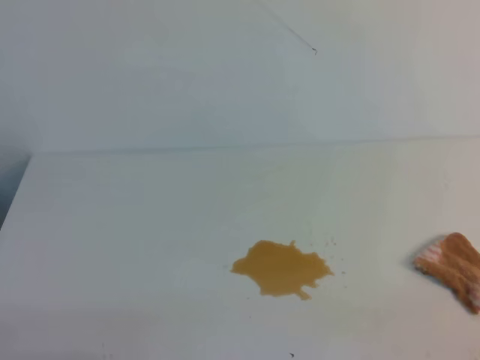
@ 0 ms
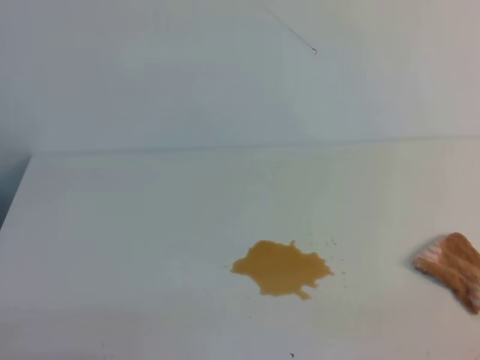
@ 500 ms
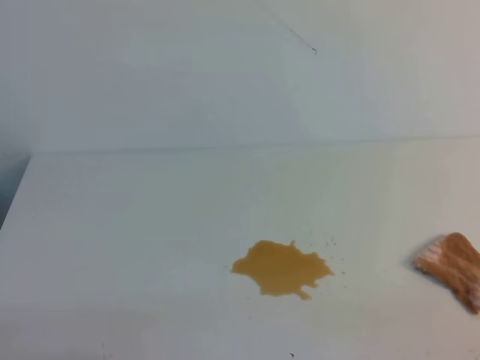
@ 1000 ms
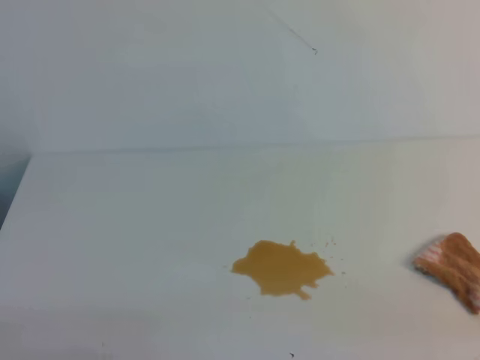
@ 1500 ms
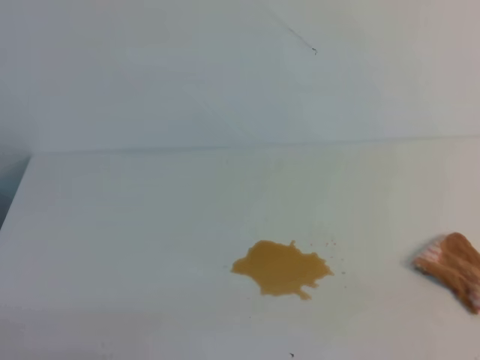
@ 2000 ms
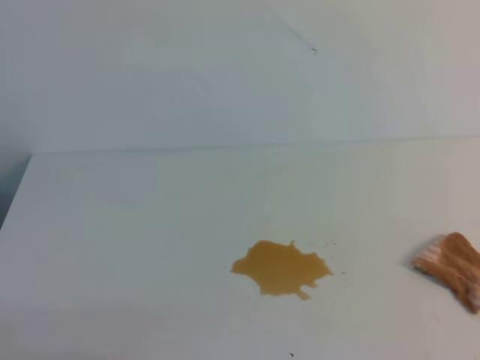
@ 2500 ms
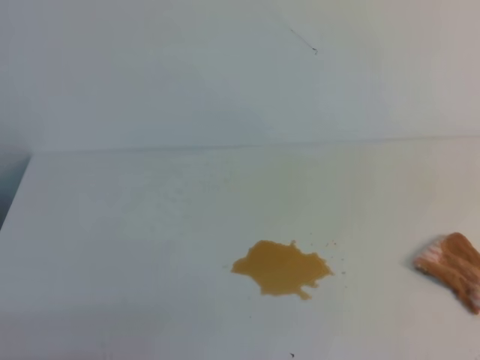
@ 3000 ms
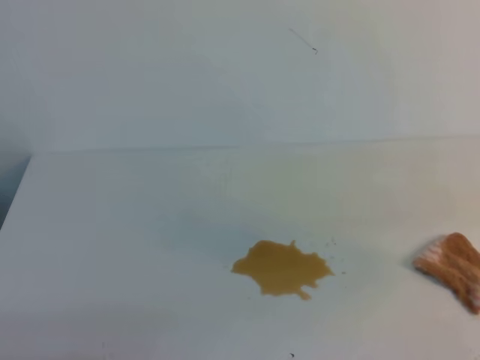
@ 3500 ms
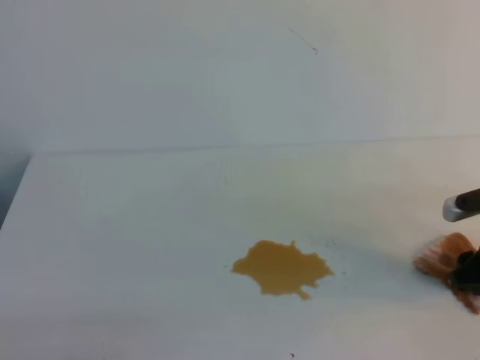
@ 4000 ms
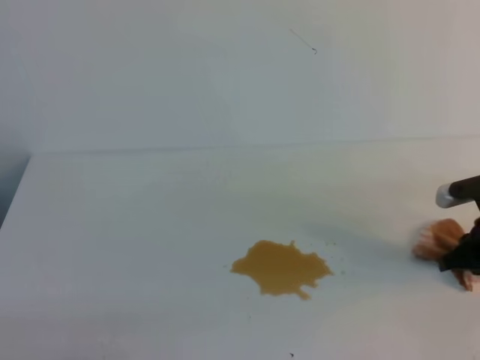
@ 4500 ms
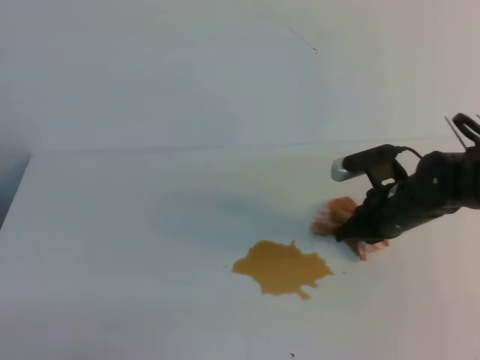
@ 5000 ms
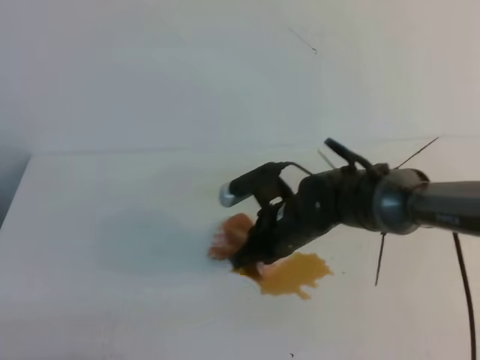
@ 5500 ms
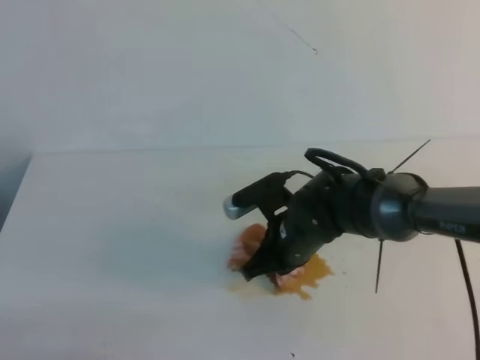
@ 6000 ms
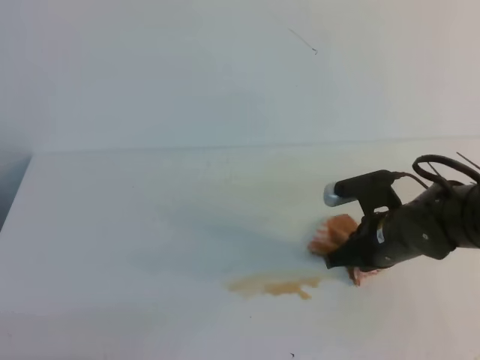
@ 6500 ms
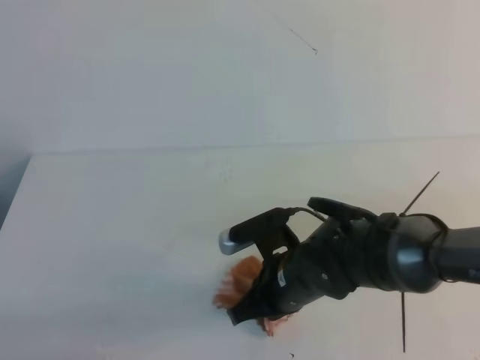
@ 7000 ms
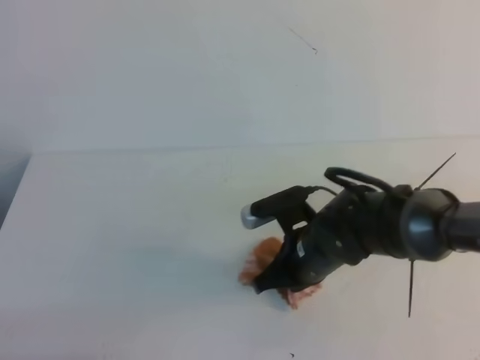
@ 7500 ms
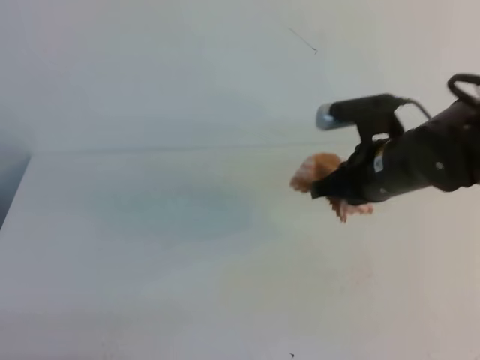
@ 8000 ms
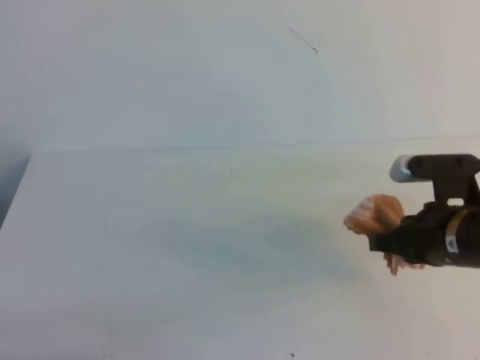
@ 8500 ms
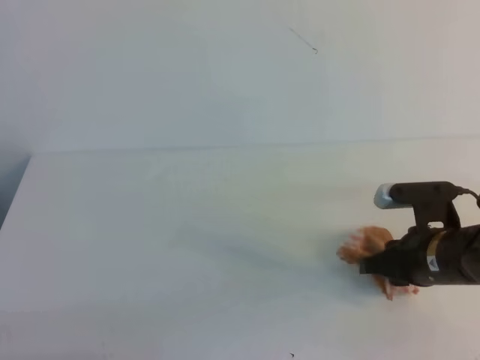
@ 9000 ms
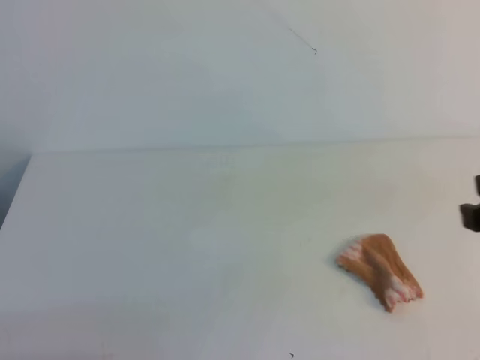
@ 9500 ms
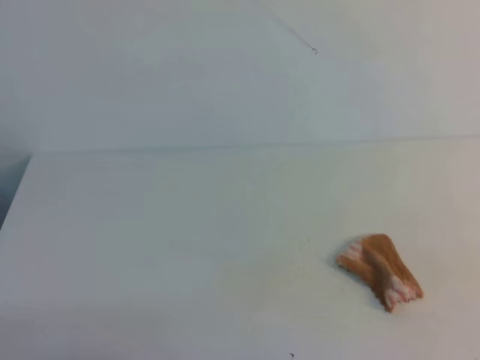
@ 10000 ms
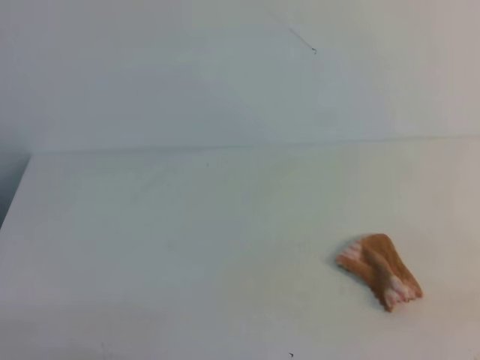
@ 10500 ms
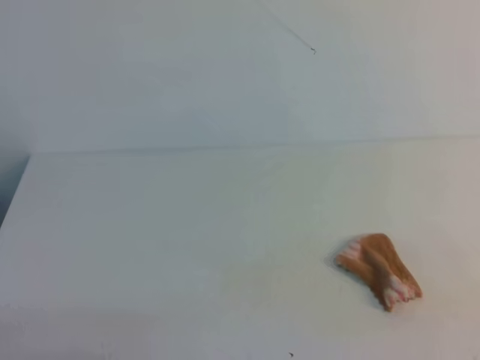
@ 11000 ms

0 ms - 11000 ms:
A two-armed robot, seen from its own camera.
3500 ms - 5500 ms: The right gripper moves to the left and downward, about 30 cm, and closes.
5500 ms - 7500 ms: The right gripper heads backward, covering some 5 cm, and moves approximately 10 cm to the right and comes back.
7500 ms - 9000 ms: The right gripper moves to the right, about 15 cm, and opens its fingers.
9000 ms - 11000 ms: The right gripper moves backward, to the right and upward, approximately 30 cm, and closes.

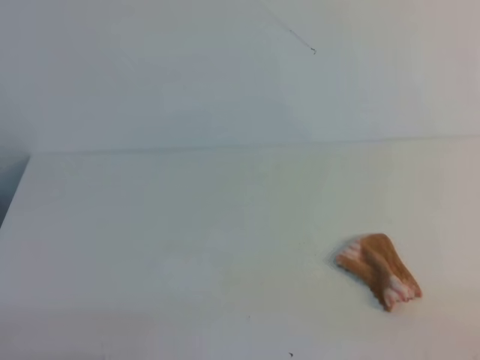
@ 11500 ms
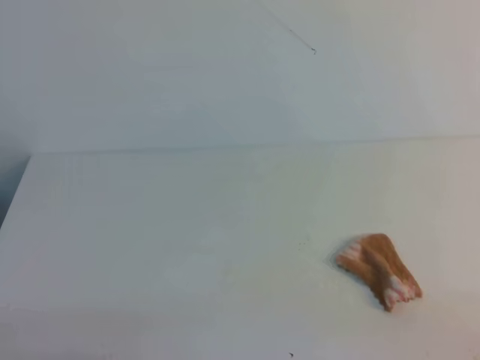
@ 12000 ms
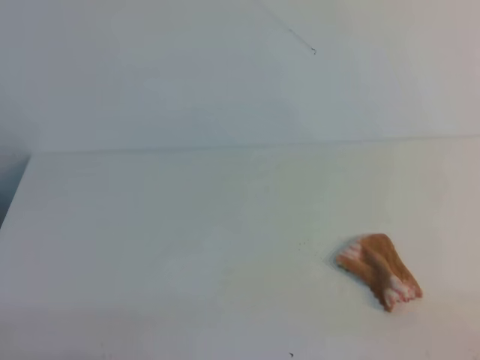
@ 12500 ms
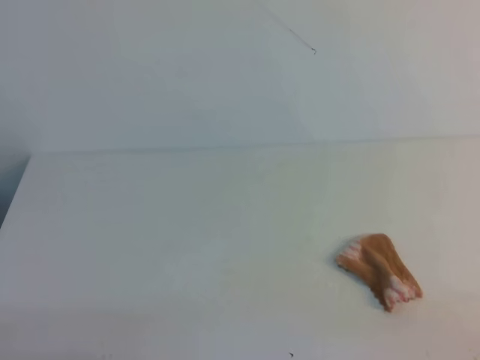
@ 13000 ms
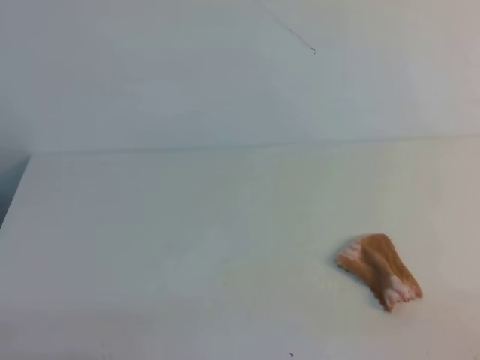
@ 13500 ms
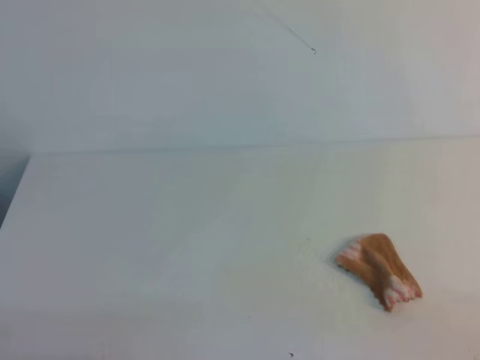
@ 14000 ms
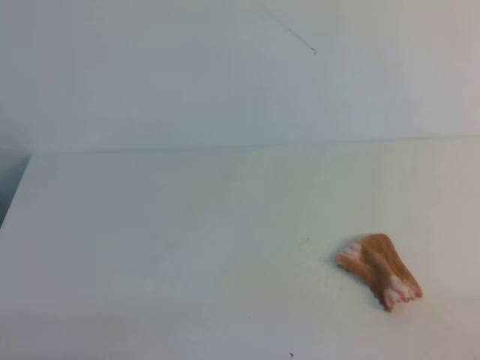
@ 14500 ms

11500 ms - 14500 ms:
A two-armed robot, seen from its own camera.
13000 ms - 14500 ms: Both grippers stay put.
